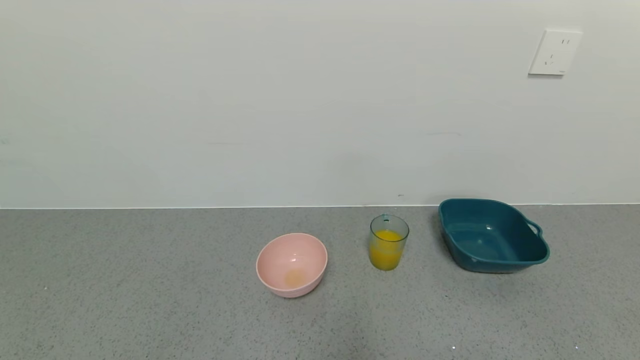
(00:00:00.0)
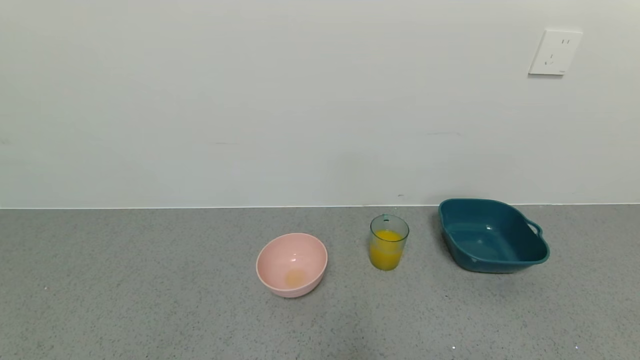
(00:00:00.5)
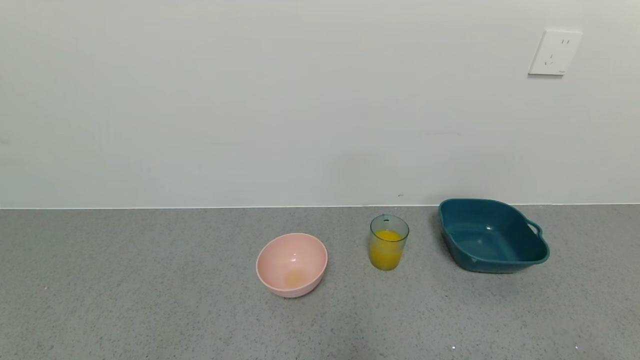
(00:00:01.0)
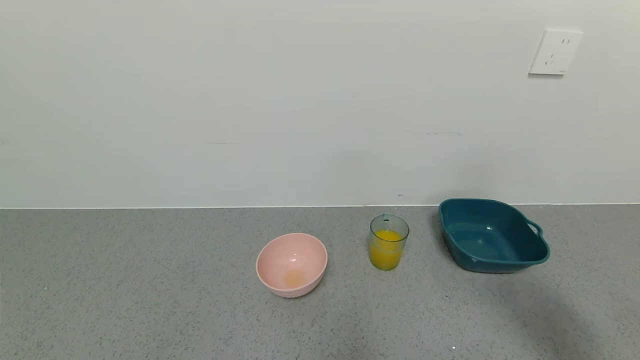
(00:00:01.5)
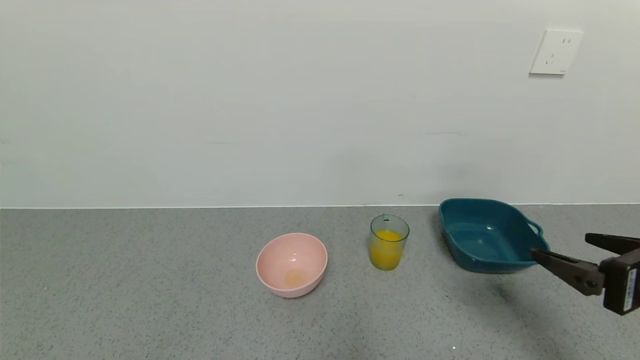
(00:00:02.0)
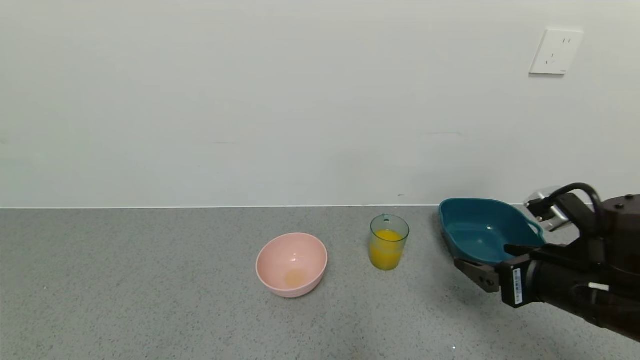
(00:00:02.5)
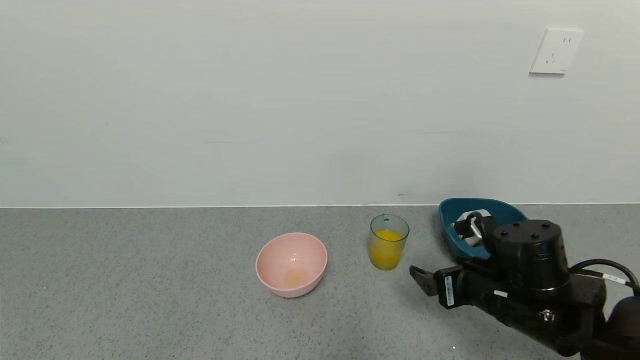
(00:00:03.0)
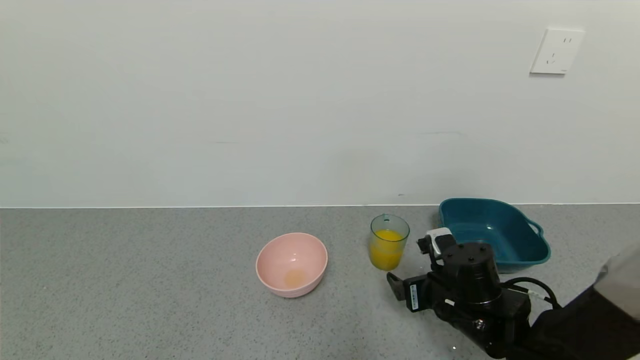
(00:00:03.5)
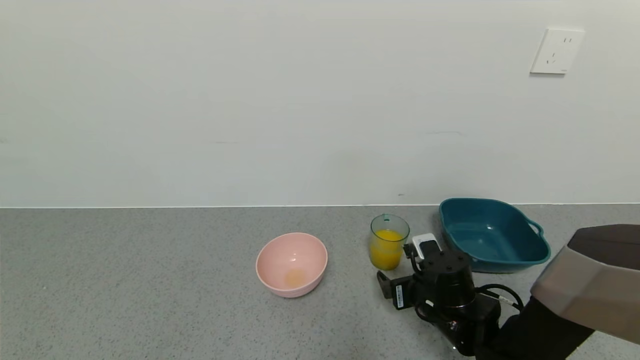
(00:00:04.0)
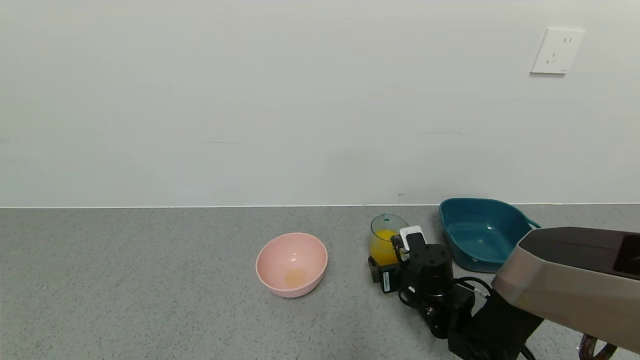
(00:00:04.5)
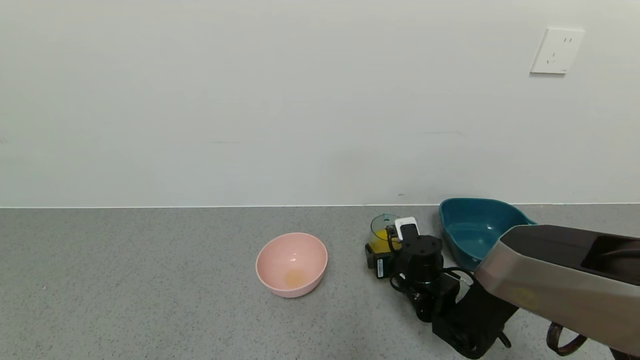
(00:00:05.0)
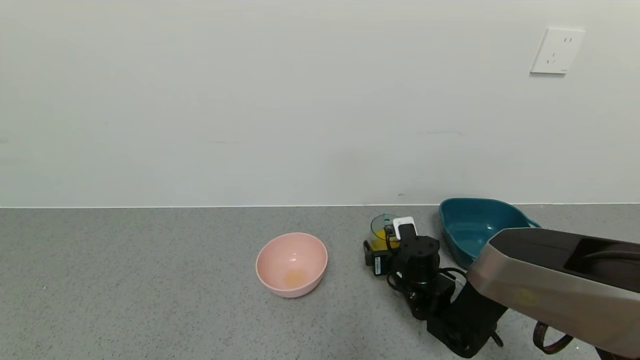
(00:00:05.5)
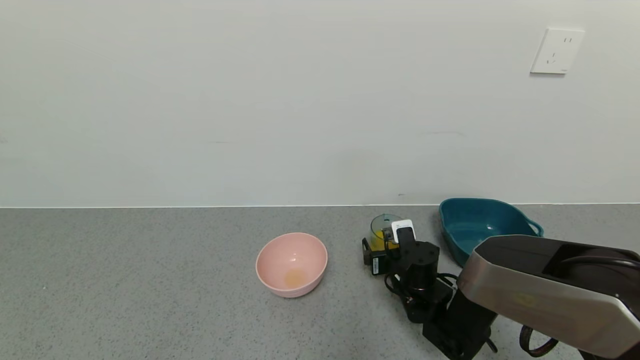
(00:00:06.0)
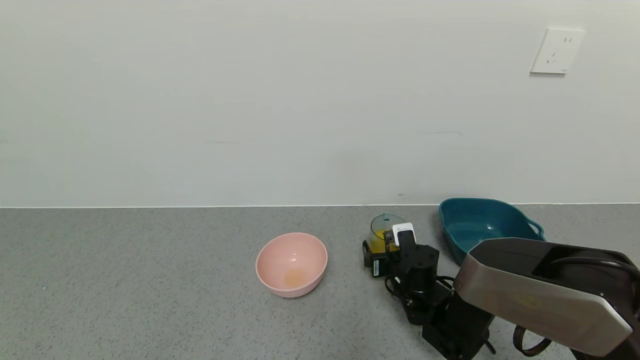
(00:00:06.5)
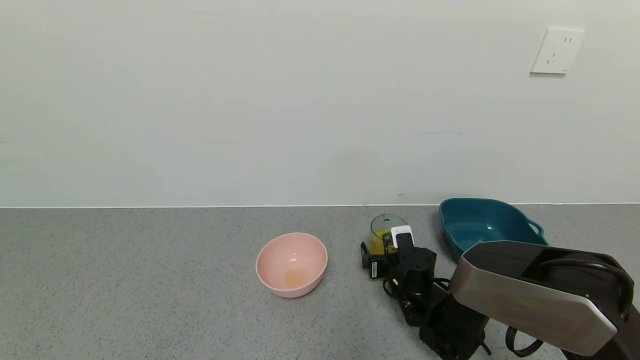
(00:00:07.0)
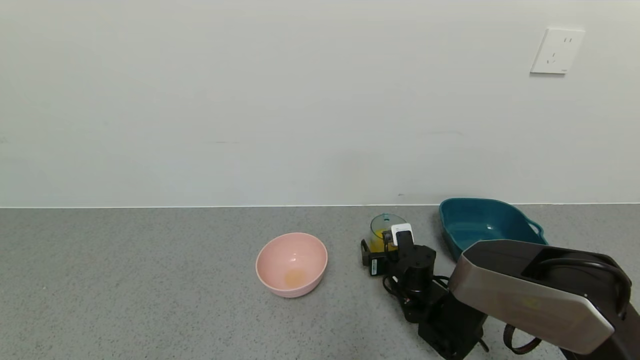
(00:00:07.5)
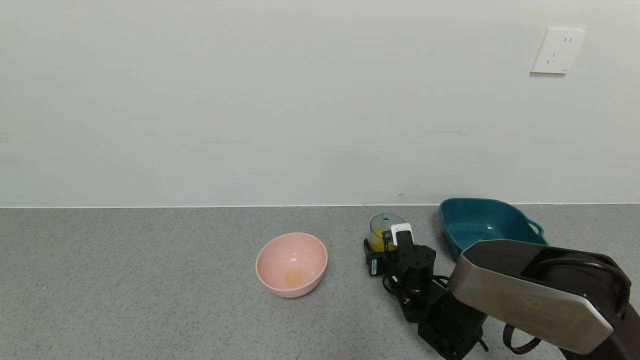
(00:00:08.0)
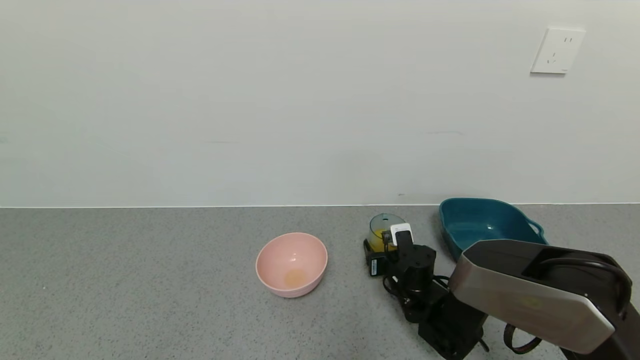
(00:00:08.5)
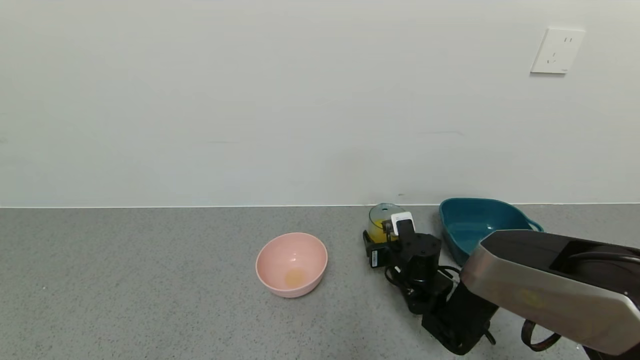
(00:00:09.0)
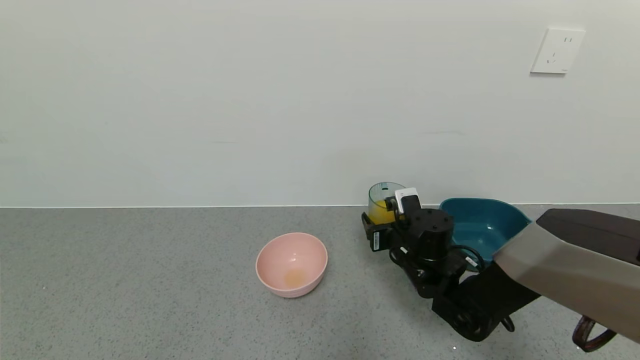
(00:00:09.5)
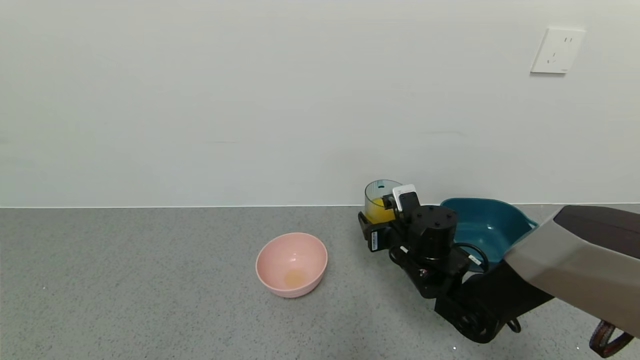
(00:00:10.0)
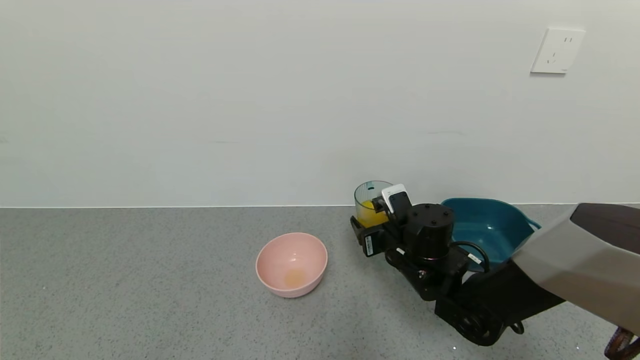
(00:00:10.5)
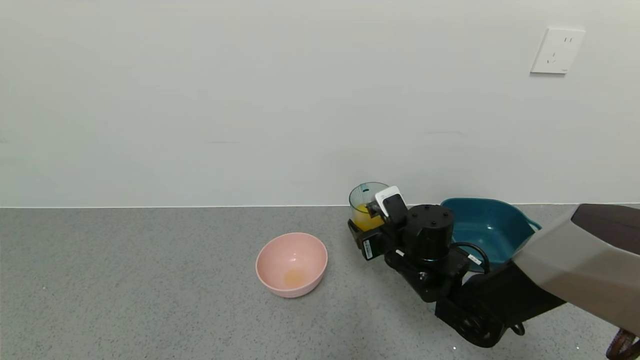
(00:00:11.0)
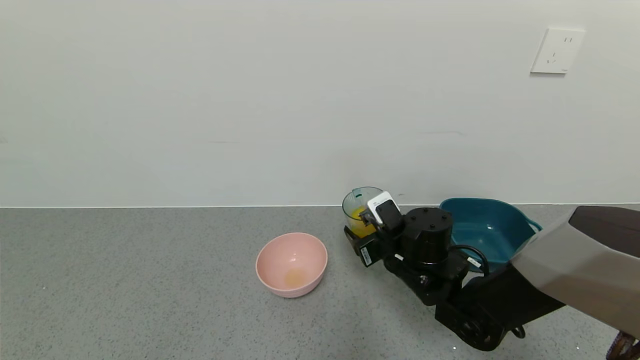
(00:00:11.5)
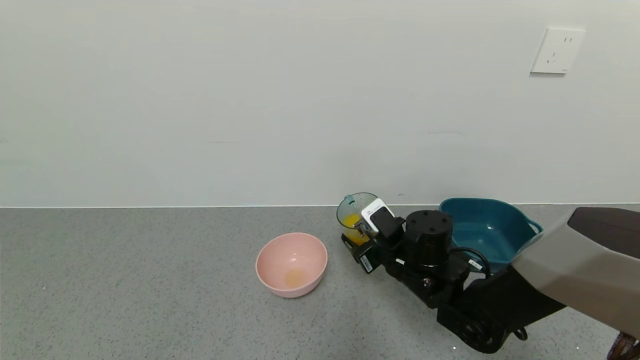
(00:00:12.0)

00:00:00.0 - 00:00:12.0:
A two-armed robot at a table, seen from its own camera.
Task of the whole recording: use a gripper to pick up the cup and pour the liquid into a bowl or tray.
Step, 00:00:00.0 - 00:00:09.5: Pick up blue cup filled with orange juice with right gripper.
00:00:00.0 - 00:00:02.0: The right gripper moves forward and upward, about 20 cm.
00:00:02.0 - 00:00:04.0: The right gripper travels downward, to the left and forward by about 25 cm.
00:00:04.0 - 00:00:06.0: The right gripper is displaced forward by roughly 5 cm.
00:00:06.0 - 00:00:08.0: The right gripper closes.
00:00:08.0 - 00:00:10.0: The right gripper heads upward, covering roughly 10 cm.

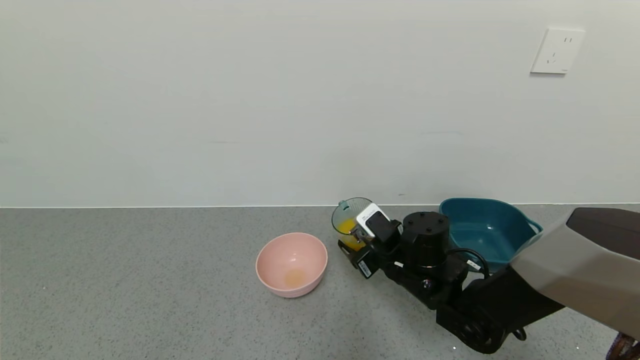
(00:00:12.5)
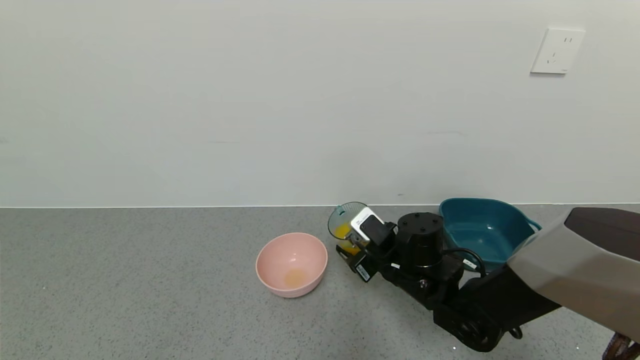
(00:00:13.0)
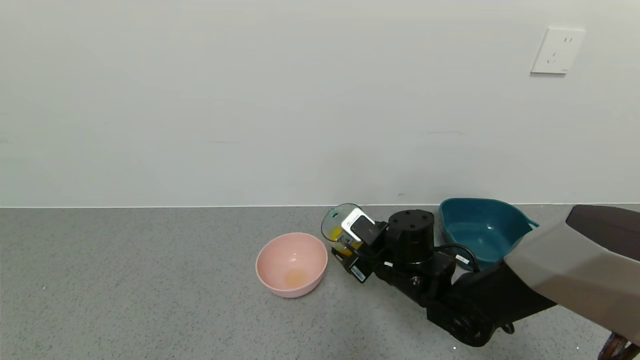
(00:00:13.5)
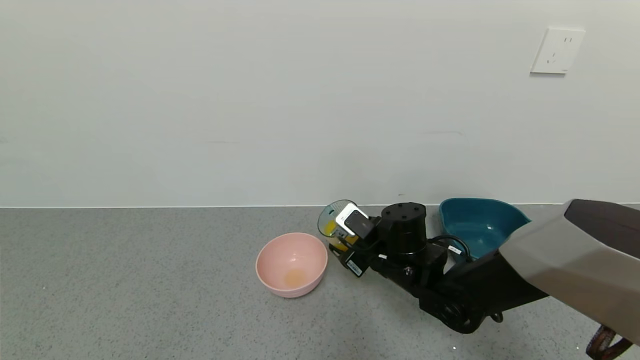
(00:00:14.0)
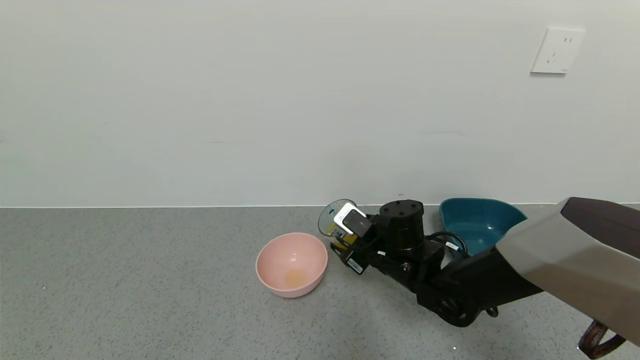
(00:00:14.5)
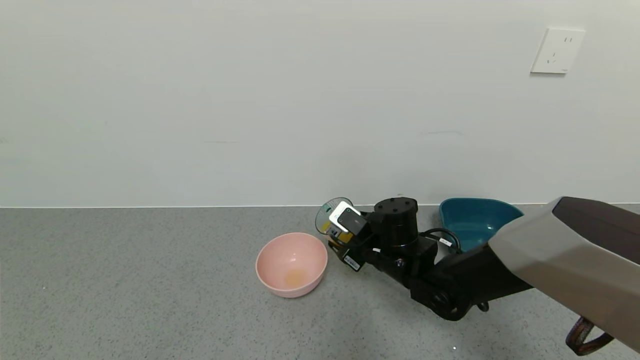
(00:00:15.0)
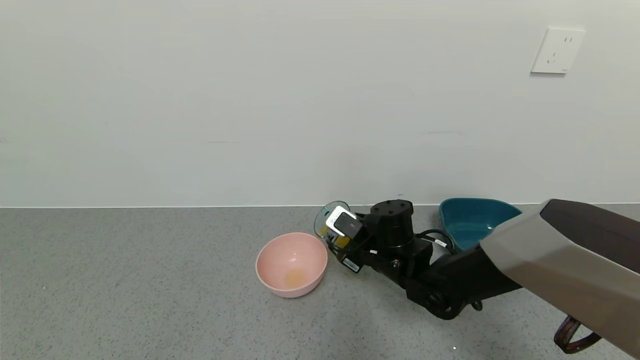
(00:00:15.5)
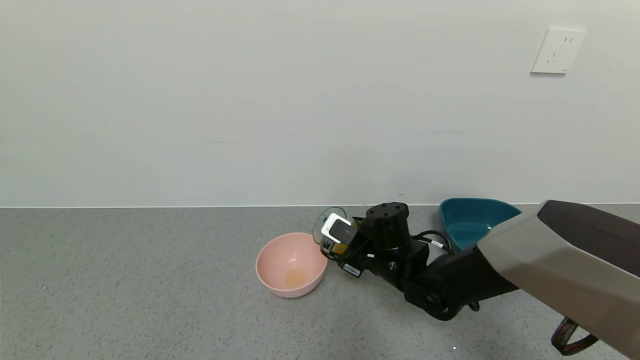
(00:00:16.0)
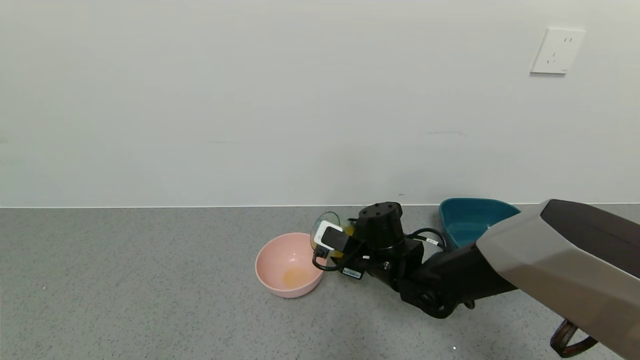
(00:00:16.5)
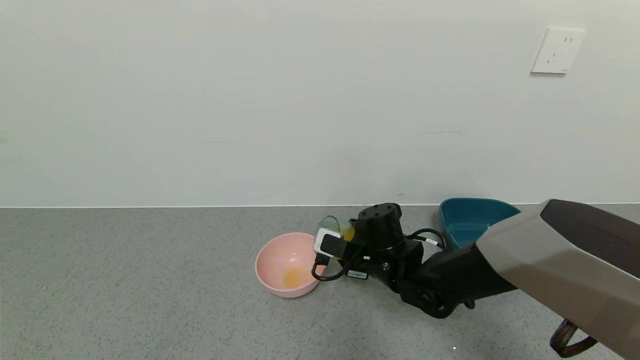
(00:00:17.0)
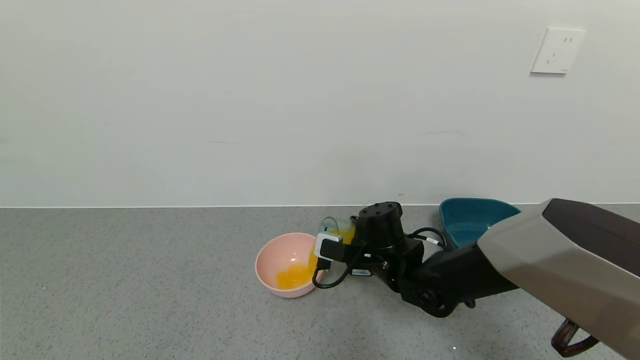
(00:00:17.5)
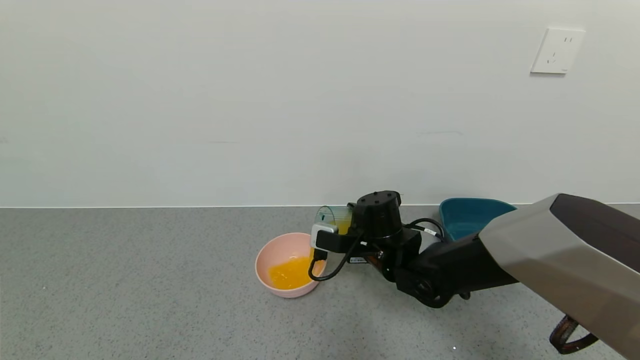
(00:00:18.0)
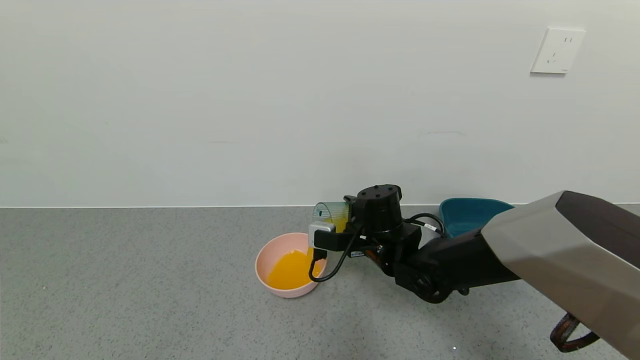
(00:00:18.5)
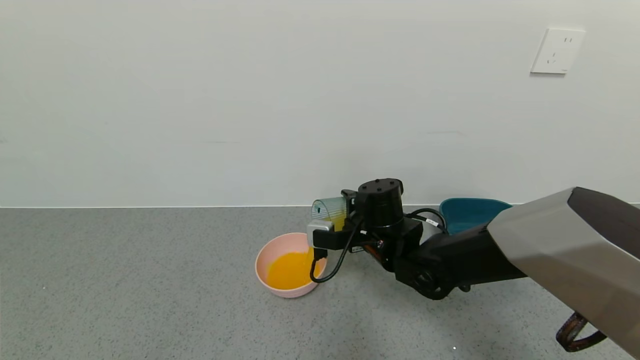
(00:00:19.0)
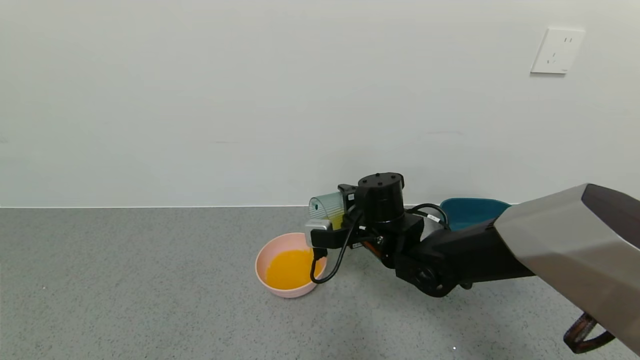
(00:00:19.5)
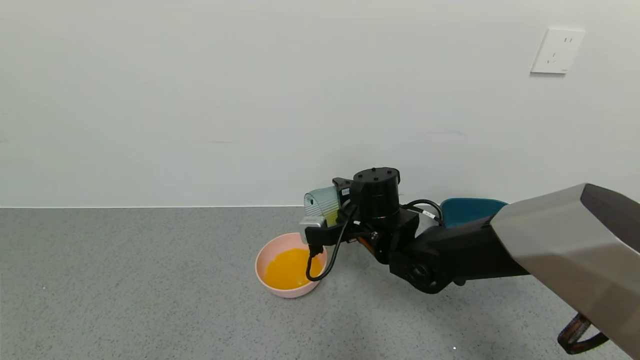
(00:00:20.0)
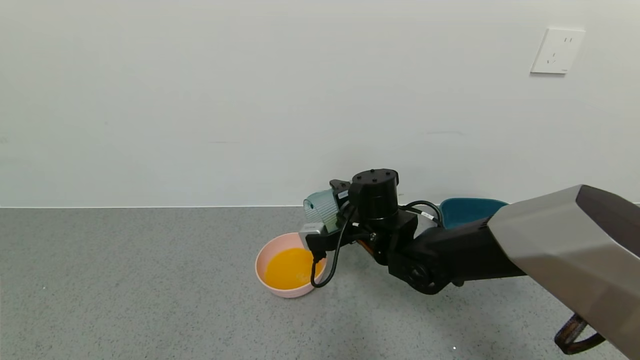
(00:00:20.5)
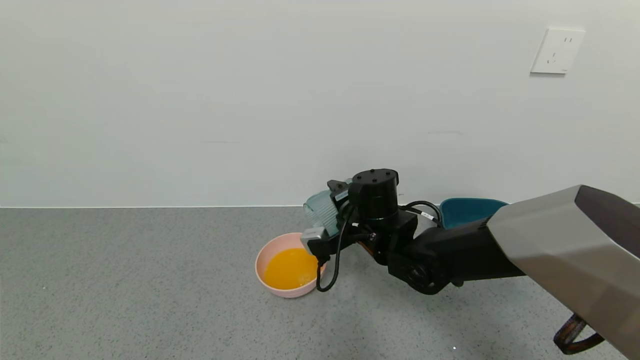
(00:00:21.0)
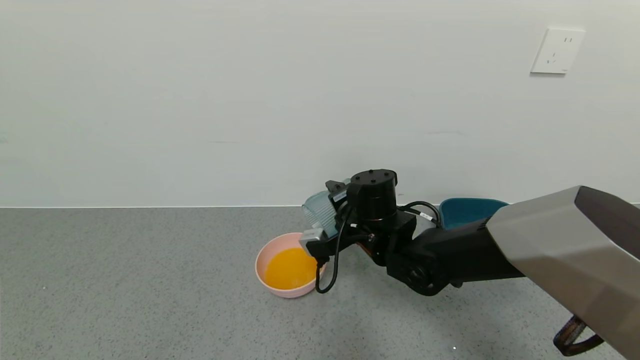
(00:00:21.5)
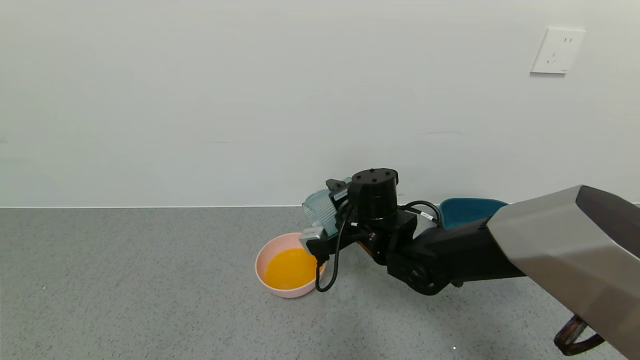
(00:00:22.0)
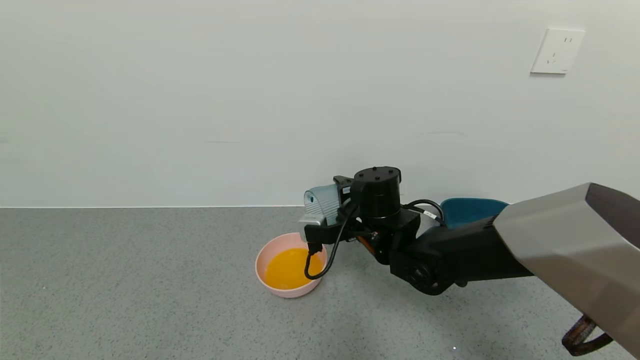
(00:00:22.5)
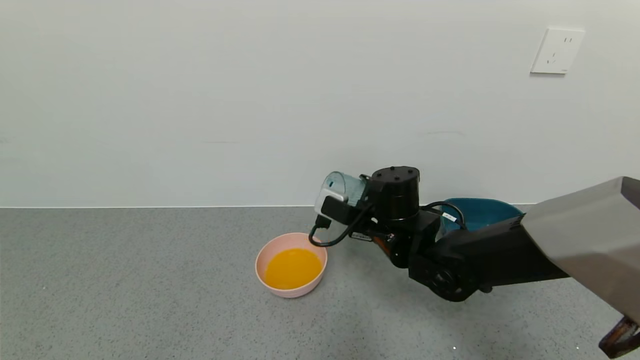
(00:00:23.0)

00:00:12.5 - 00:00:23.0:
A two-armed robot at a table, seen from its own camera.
Task of the whole recording: use a gripper to pick up the cup and pour the liquid into a bowl or tray.
Step, 00:00:12.5 - 00:00:22.5: Pour the orange juice into the pink bowl with right gripper.
00:00:12.5 - 00:00:14.5: The grippers stay close to where they were, moving slightly.
00:00:14.5 - 00:00:16.5: The grippers move only a little.
